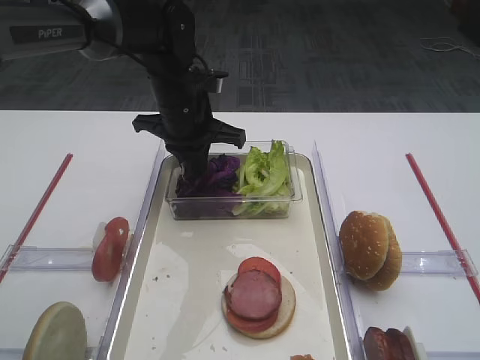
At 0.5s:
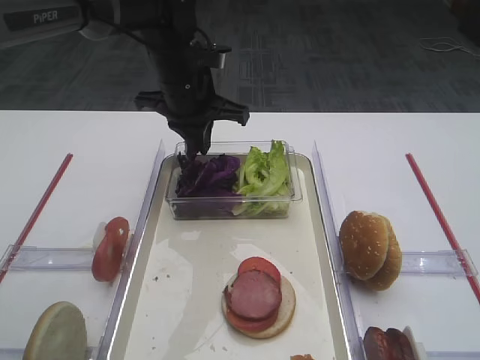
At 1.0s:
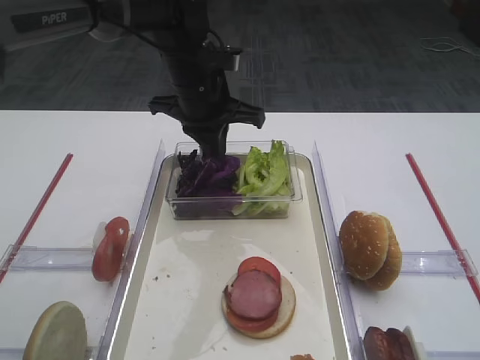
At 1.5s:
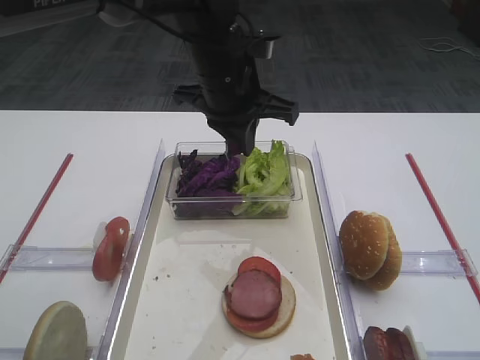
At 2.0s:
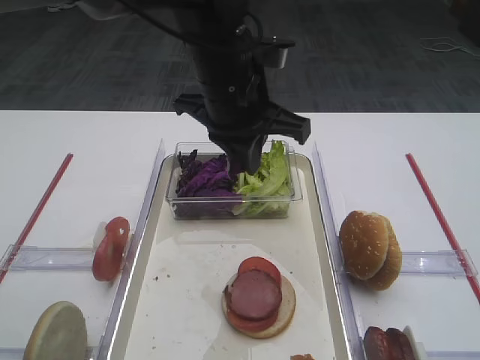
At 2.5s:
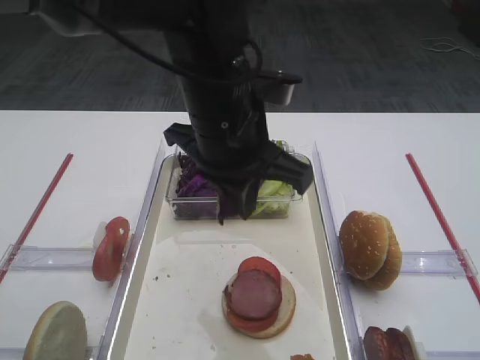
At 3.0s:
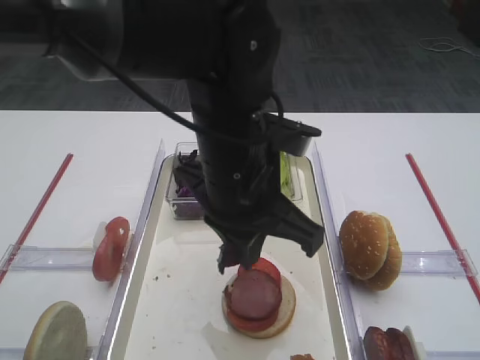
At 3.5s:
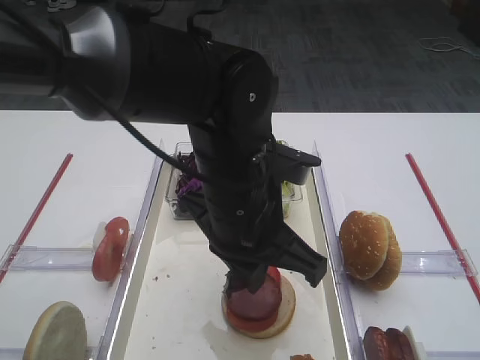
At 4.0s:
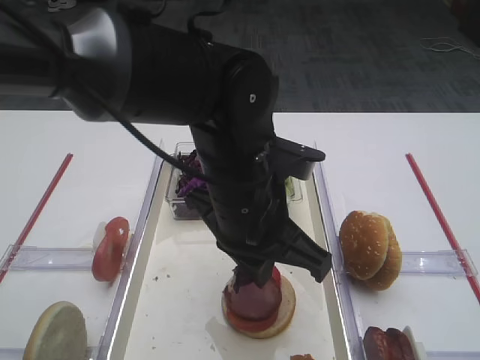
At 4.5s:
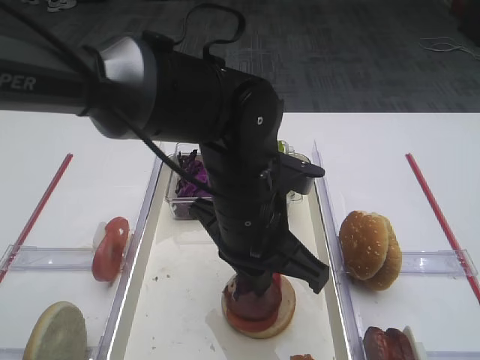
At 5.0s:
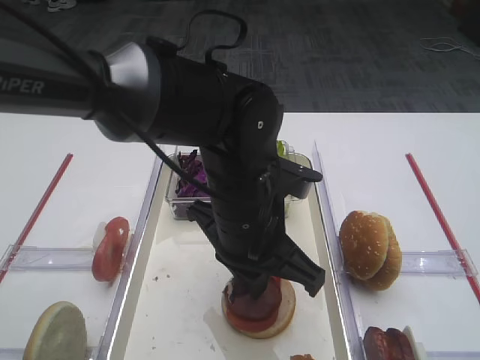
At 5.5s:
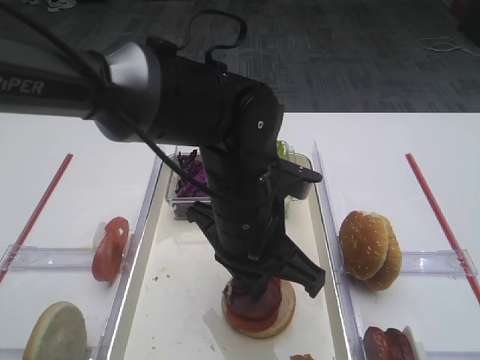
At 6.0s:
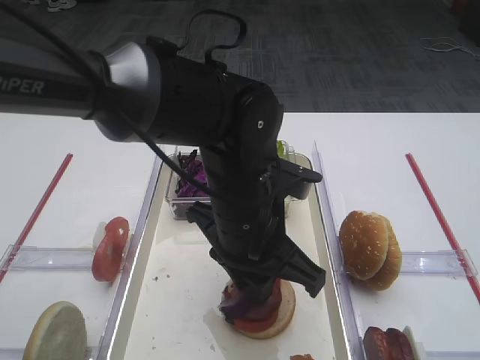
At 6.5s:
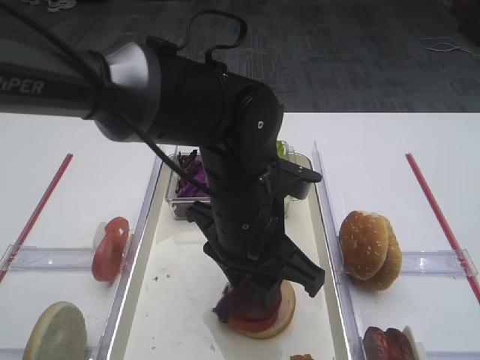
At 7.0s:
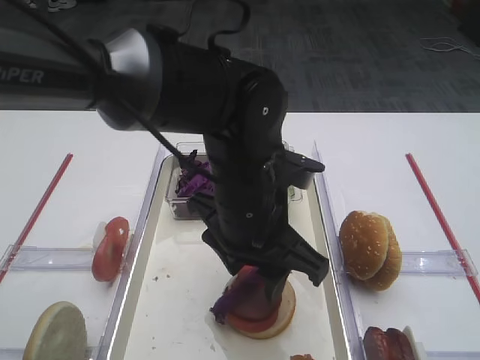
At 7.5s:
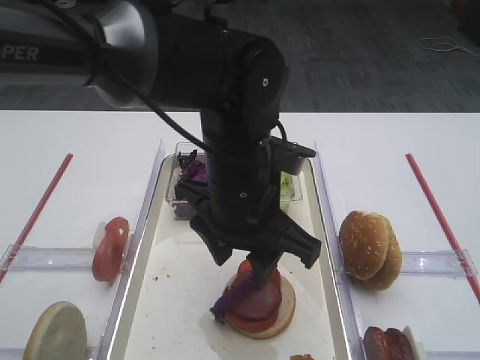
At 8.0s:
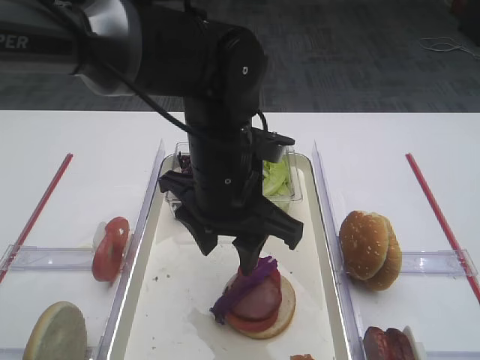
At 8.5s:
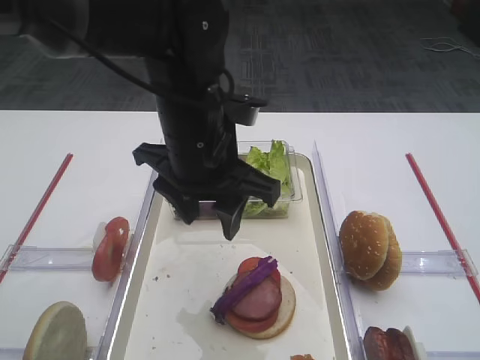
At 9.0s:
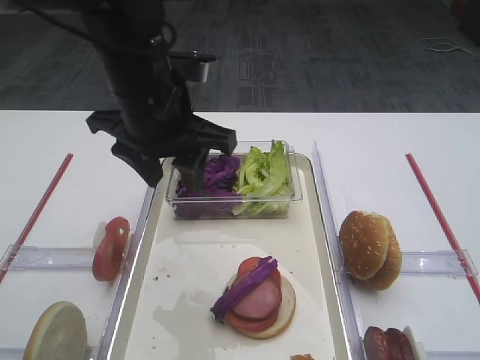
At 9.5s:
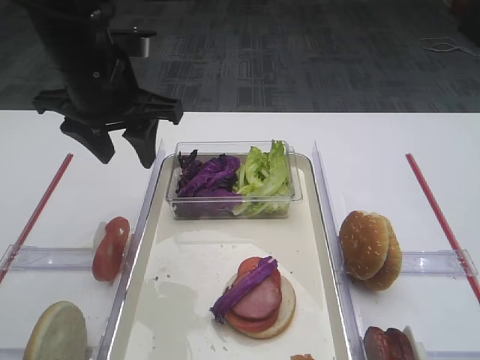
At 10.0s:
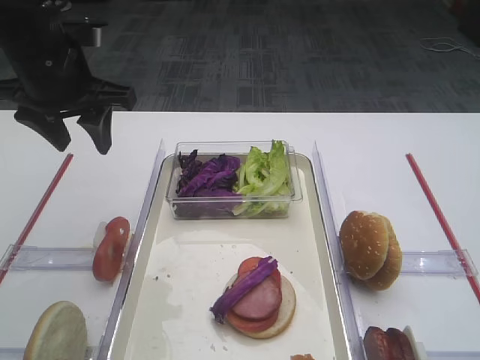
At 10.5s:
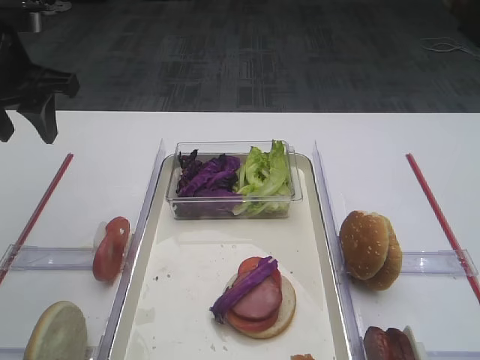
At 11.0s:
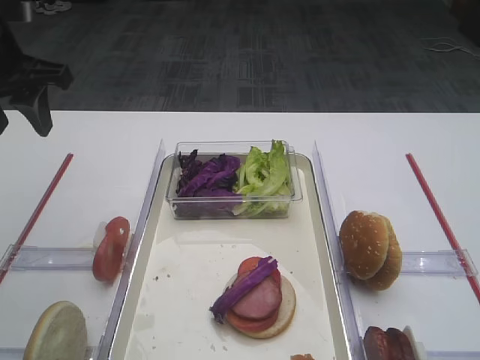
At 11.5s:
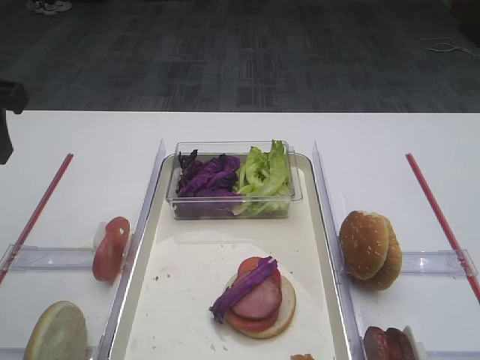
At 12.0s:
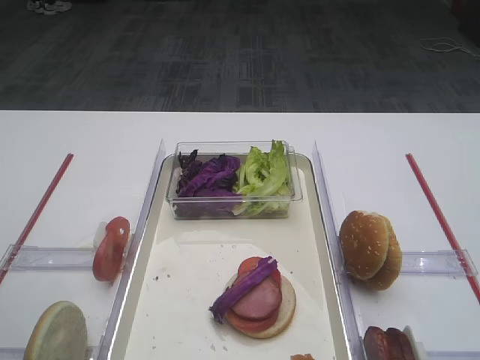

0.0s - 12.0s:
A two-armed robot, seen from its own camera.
Step, 2.0s - 9.0s: Place the purple cabbage on the cutlet with the left gripper.
0.0s - 2.0s: The left gripper travels backward, upward and to the right by about 10 cm.
2.0s - 4.0s: The left gripper is displaced backward and downward by approximately 10 cm.
4.0s - 6.0s: The left gripper opens its fingers.
6.0s - 8.0s: The left gripper opens its fingers.
8.0s - 10.0s: The left gripper goes some 20 cm to the left and forward.
10.0s - 12.0s: The left gripper heads backward and to the left, covering about 20 cm.

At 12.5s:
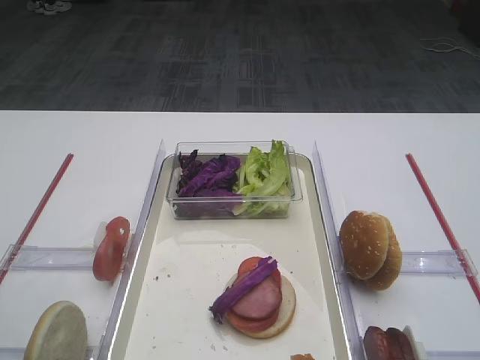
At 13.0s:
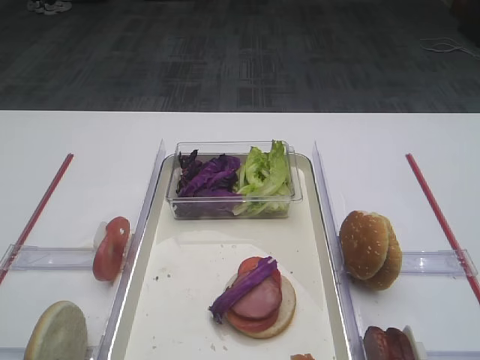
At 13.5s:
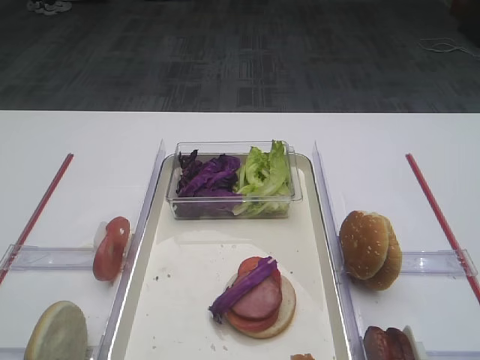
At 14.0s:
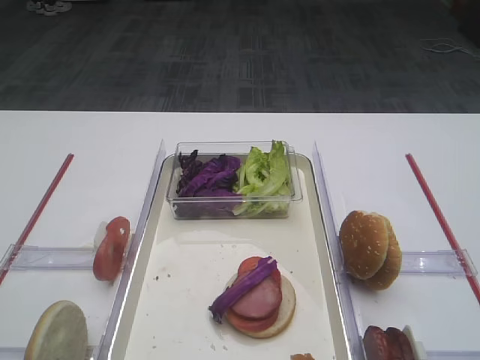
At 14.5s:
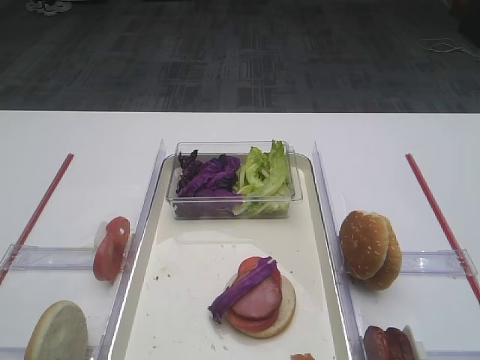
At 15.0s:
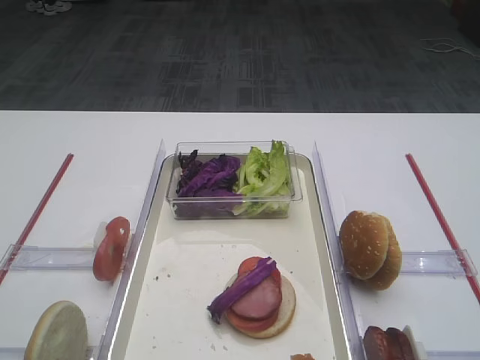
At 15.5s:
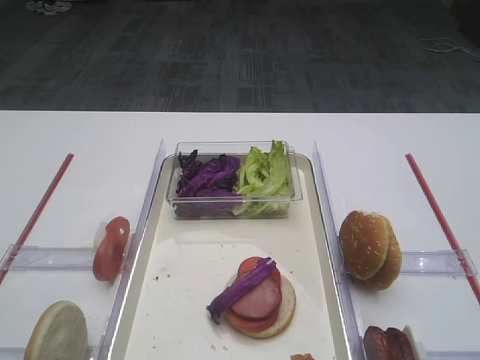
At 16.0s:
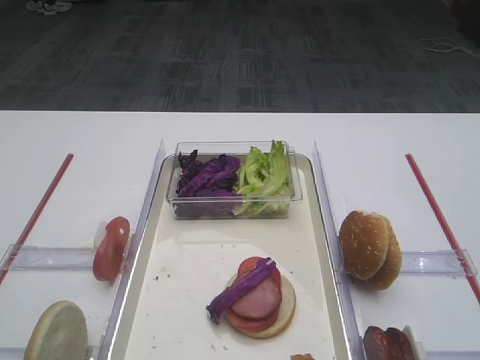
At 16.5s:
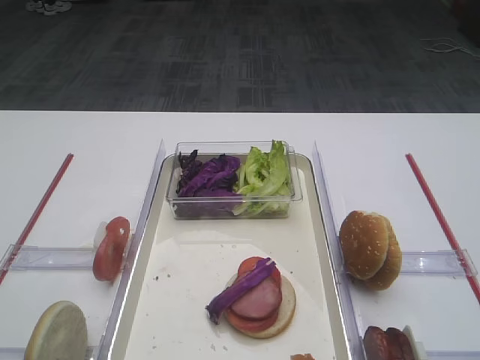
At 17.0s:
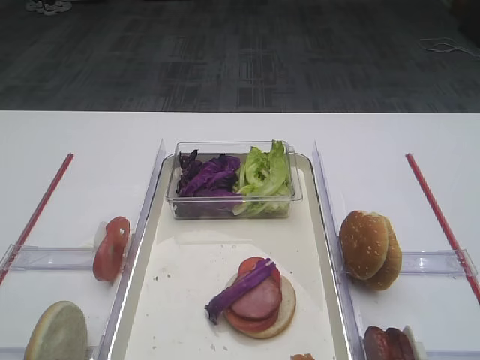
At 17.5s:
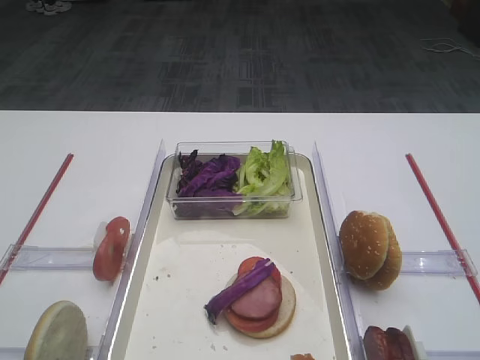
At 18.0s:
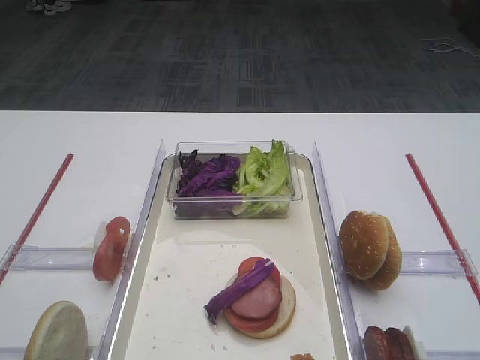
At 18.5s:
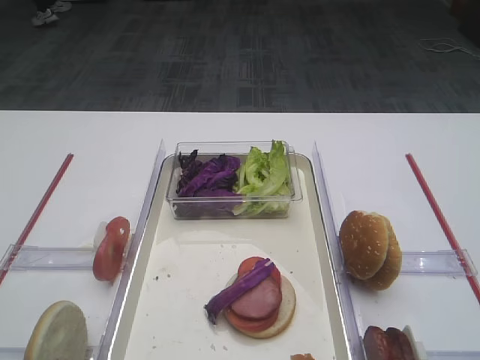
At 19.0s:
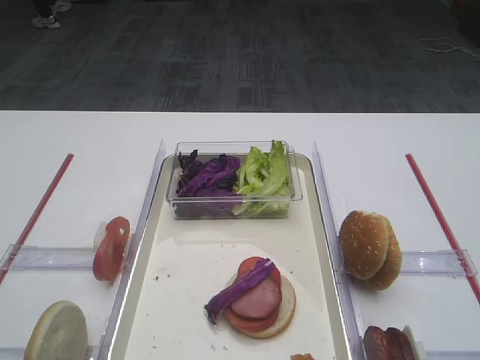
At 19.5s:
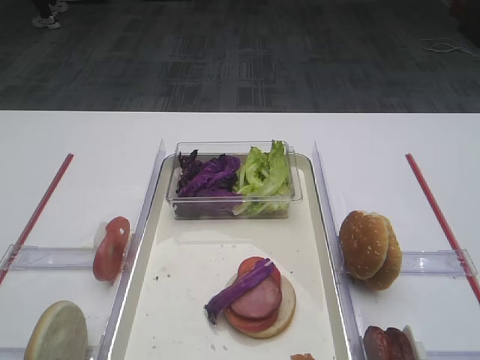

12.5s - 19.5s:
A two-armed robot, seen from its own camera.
14.5s - 17.5s: Neither gripper changes place.

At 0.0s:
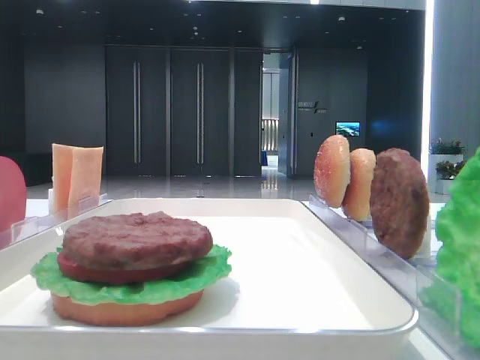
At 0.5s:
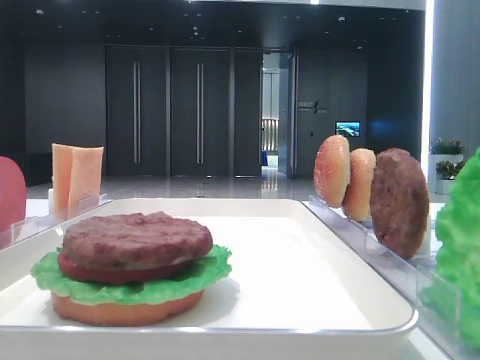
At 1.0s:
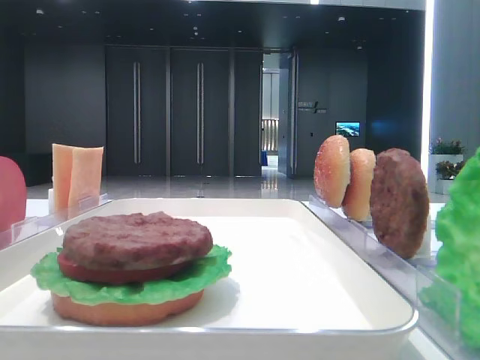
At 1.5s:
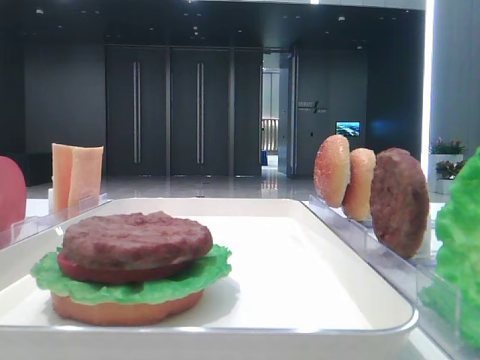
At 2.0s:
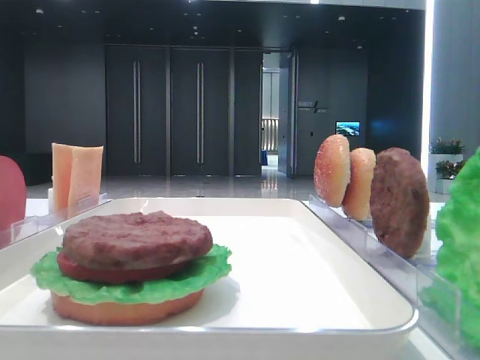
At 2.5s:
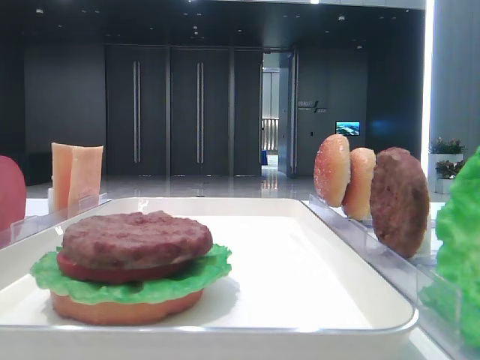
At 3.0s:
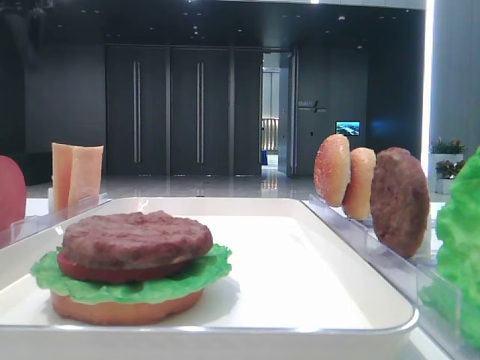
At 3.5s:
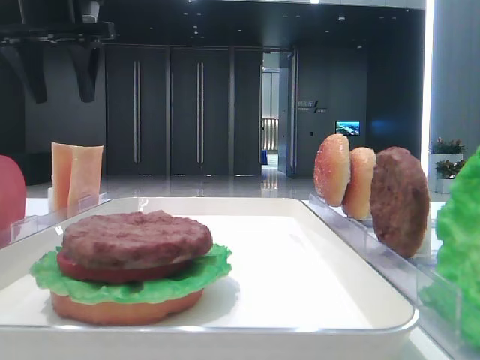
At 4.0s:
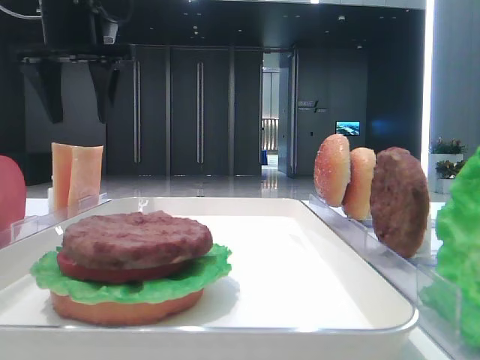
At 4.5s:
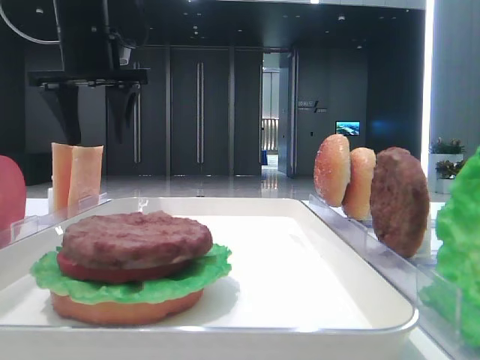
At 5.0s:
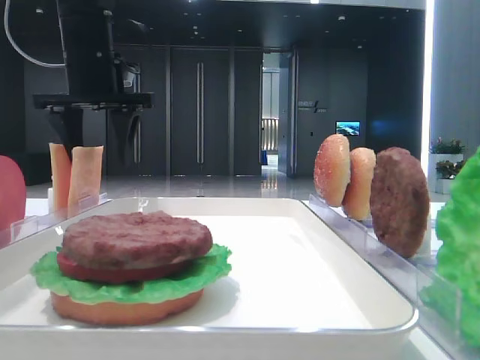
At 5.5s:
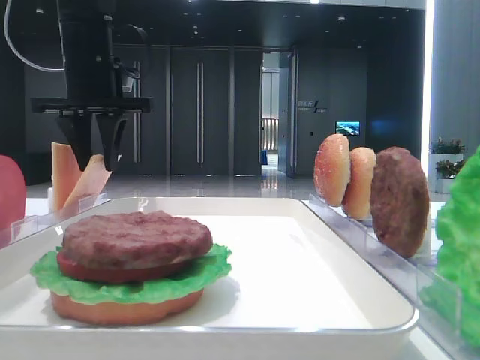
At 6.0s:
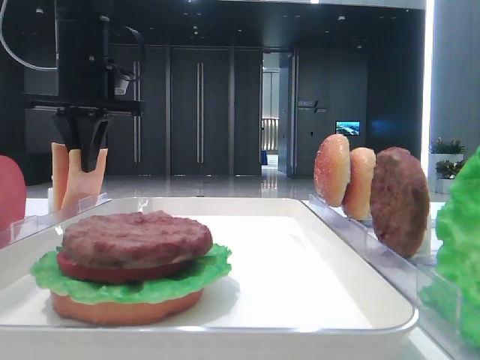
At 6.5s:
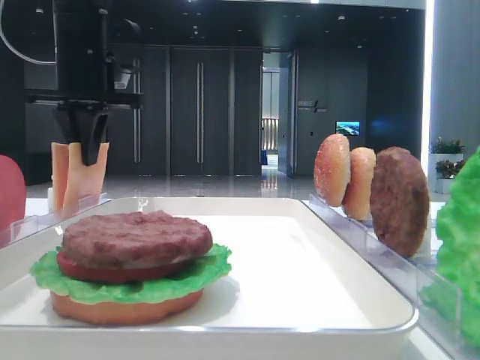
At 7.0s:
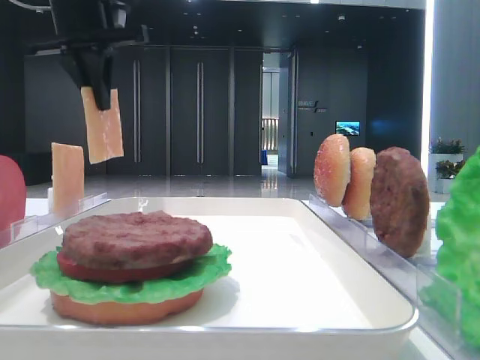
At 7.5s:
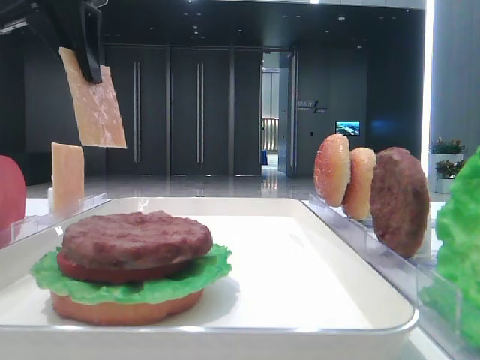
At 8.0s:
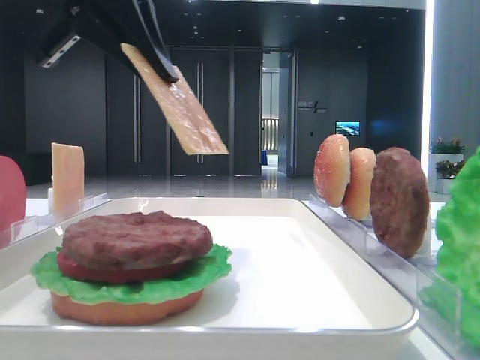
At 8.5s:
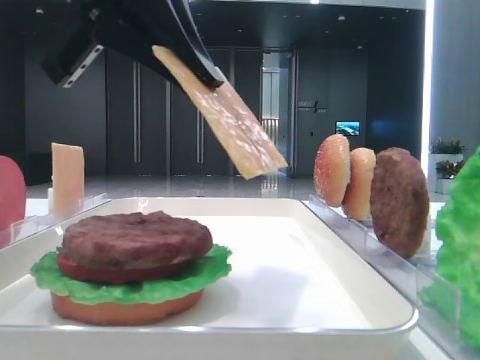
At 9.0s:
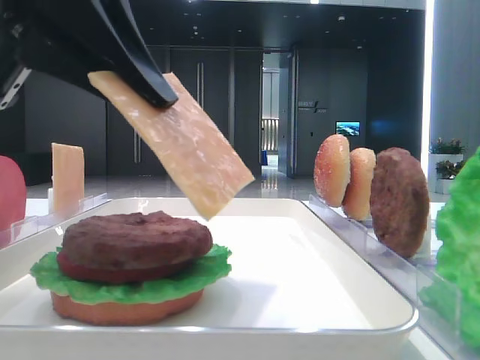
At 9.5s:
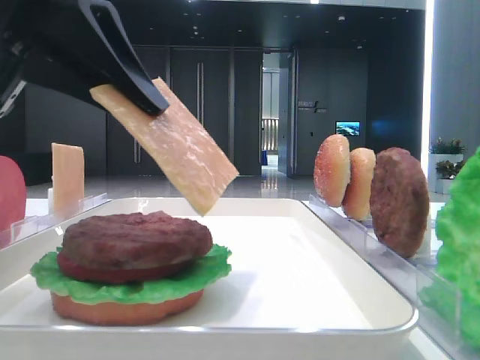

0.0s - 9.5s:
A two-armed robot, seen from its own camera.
Step, 0.0s - 6.0s: Pick up the cheese slice with the left hand.
2.0s - 4.0s: The left gripper travels forward, to the right and downward by some 25 cm.
4.0s - 5.5s: The left gripper is displaced downward by about 5 cm, and closes up.
5.5s - 7.5s: The left gripper travels backward and upward by roughly 10 cm, and closes its fingers.
7.5s - 9.5s: The left gripper moves backward and downward, about 15 cm.
